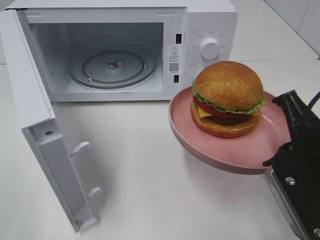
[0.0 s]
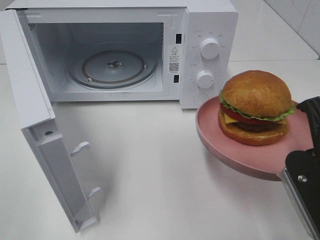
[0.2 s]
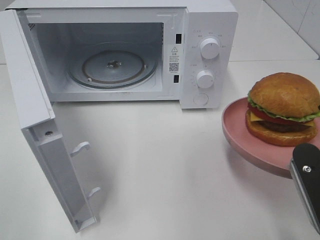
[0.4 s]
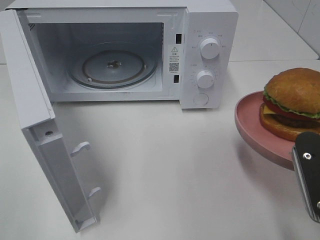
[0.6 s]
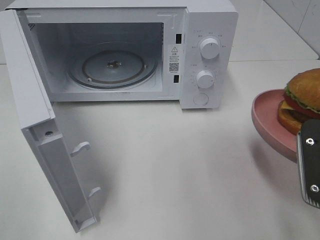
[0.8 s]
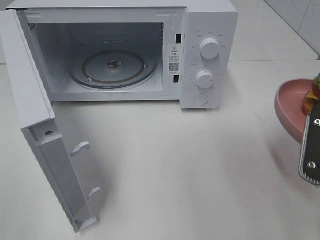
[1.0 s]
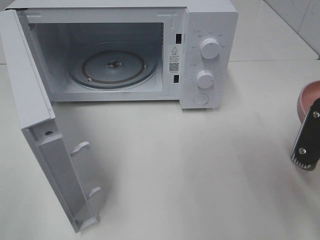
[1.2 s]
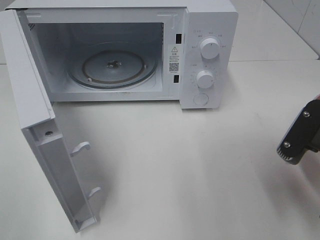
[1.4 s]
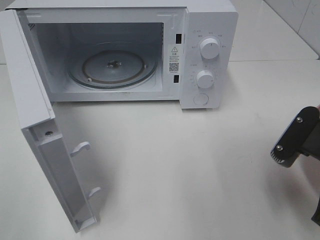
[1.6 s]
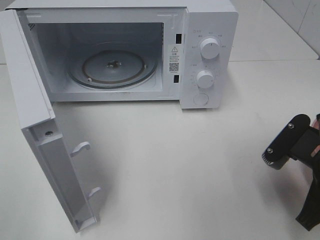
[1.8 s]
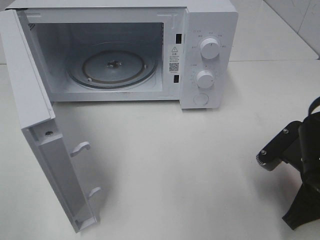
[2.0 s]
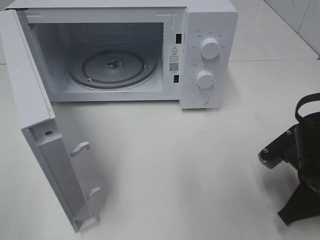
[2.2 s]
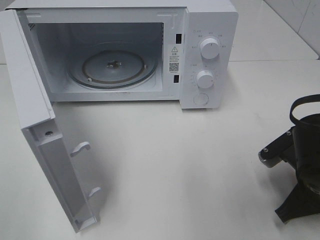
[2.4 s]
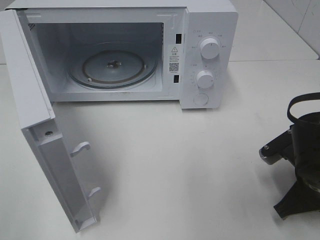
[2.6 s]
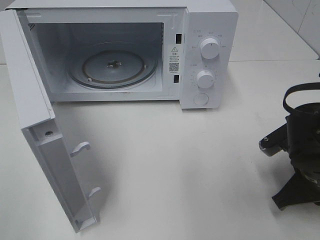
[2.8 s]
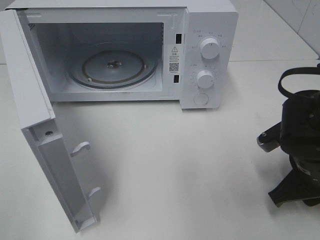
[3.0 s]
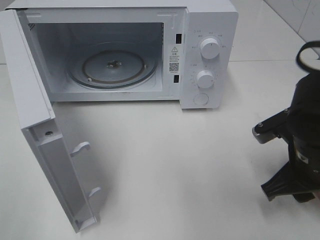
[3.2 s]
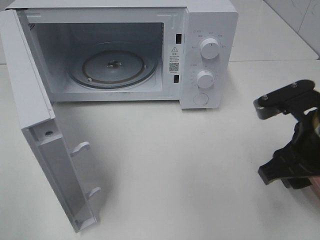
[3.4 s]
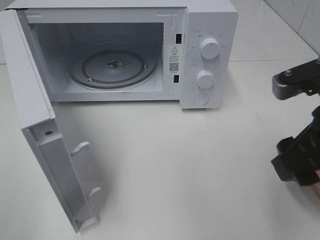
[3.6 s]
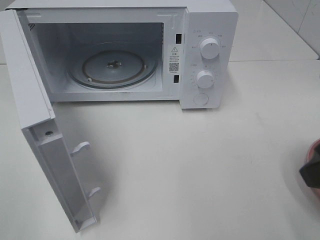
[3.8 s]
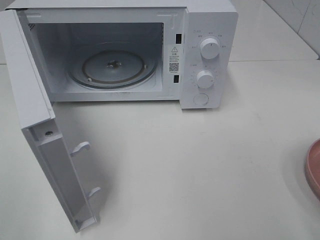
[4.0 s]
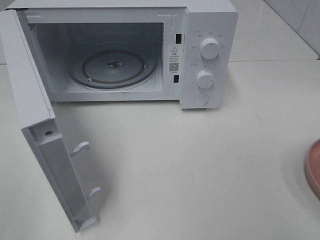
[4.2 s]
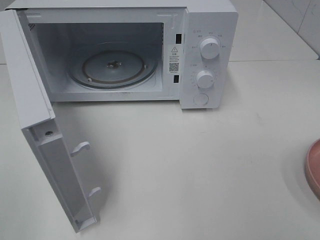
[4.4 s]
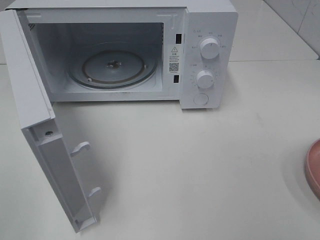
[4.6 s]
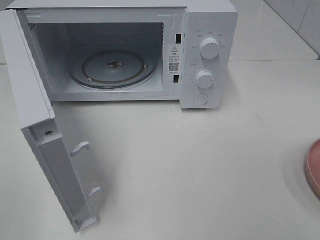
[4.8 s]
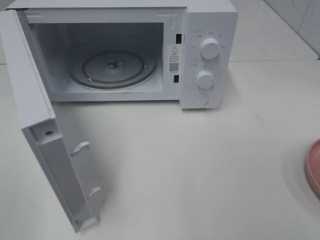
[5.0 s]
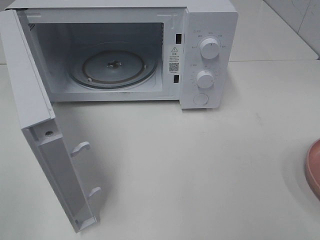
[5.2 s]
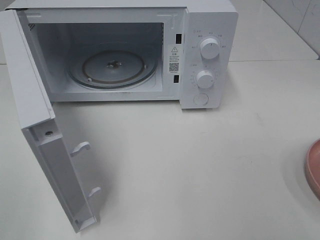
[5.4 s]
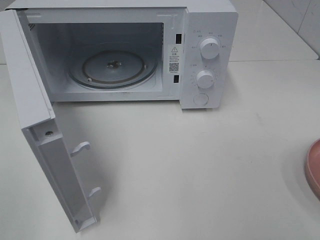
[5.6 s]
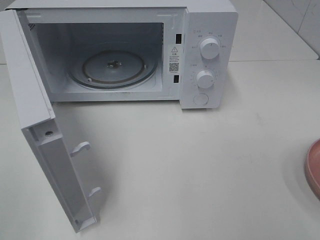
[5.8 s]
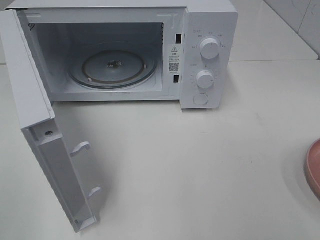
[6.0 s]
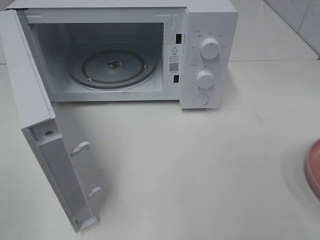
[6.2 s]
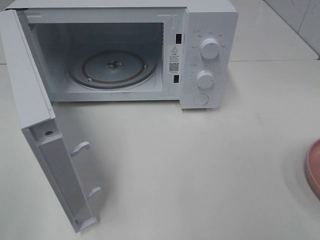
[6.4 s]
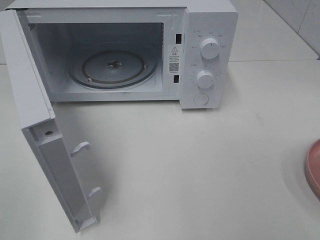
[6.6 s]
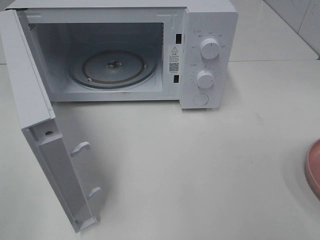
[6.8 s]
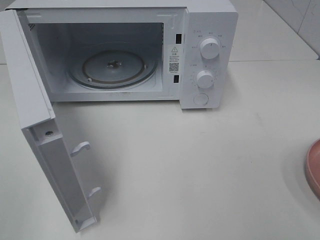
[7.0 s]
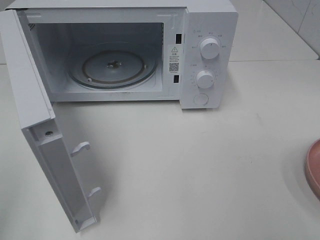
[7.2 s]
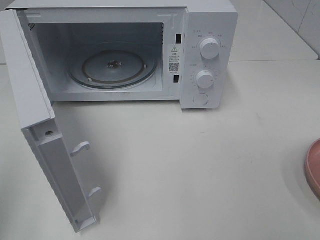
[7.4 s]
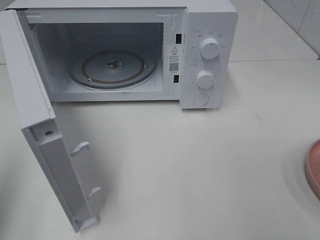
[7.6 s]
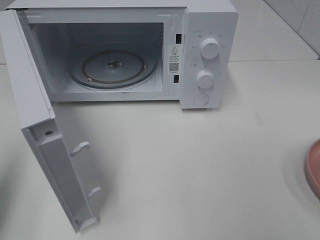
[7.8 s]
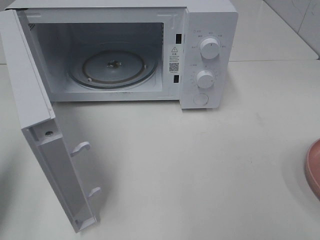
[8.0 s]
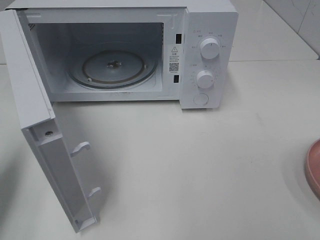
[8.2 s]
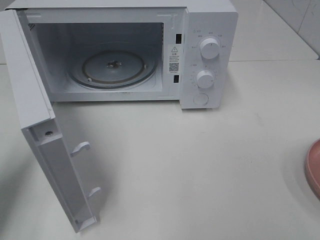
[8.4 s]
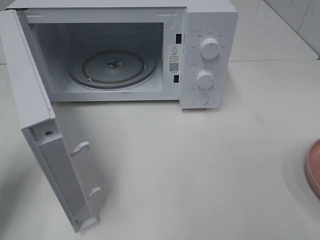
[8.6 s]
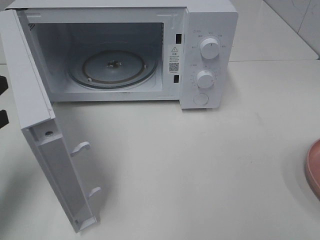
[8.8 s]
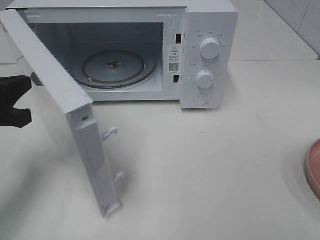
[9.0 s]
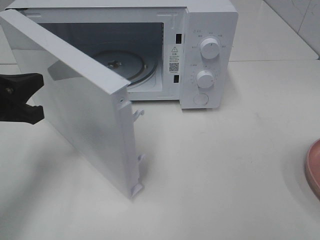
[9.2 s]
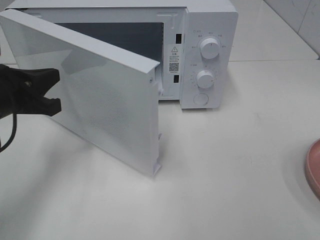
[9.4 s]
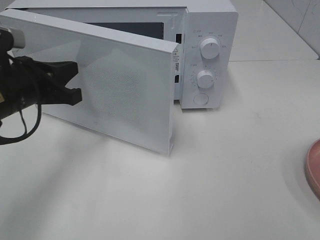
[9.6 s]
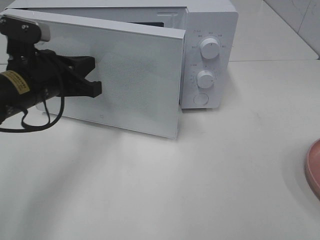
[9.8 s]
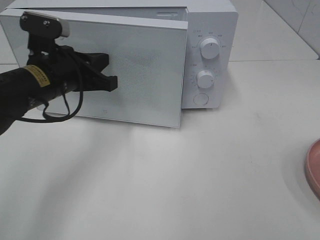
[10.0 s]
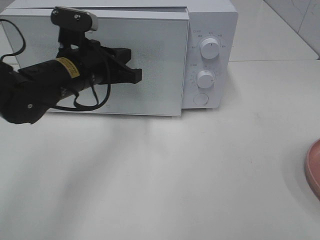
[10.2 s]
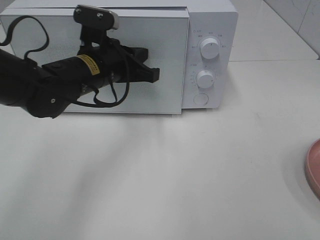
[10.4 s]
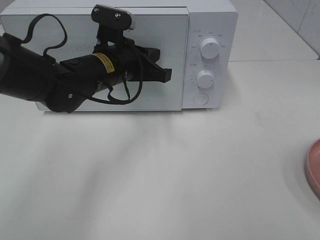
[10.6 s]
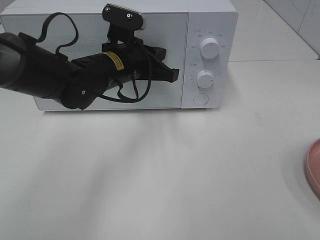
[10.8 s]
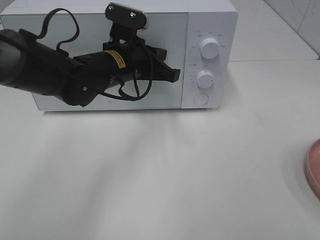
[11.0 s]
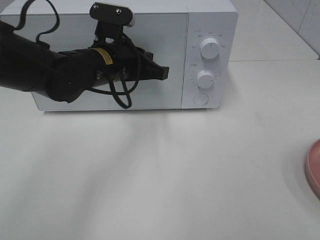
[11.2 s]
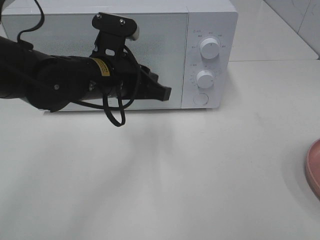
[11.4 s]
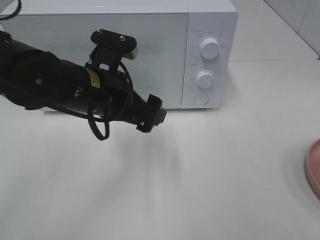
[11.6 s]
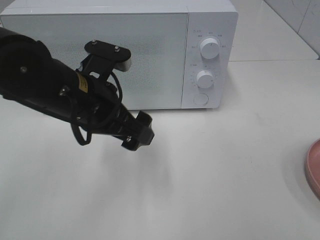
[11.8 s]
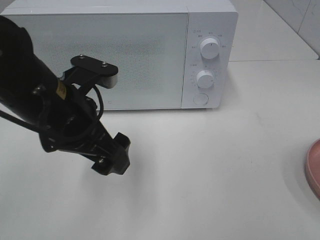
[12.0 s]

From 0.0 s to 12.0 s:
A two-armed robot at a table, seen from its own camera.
Task of the whole recording: Heat the burger.
Step, from 0.0 s to 3.0 s: Right hand: place the plate on the table.
Step, from 3.2 s to 11.4 s: Left hand: close the microwave door.
From 0.0 s to 1.6 s: The right gripper is displaced downward by approximately 5 cm.
From 1.6 s to 3.0 s: The right gripper heads downward, covering about 5 cm, and opens up.
From 3.0 s to 4.4 s: The right gripper moves upward, backward and to the right, roughly 25 cm, and opens up.
From 6.0 s to 7.6 s: The left gripper shifts approximately 10 cm forward, and closes its fingers.
From 7.6 s to 9.0 s: The left gripper moves forward, downward and to the right, approximately 20 cm.
From 9.0 s to 10.4 s: The left gripper moves to the right and forward, some 20 cm.
From 10.4 s to 12.0 s: The left gripper moves backward, about 10 cm, and opens.

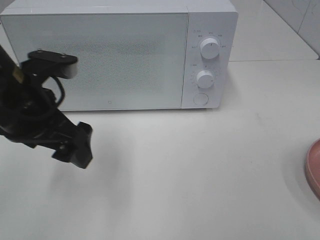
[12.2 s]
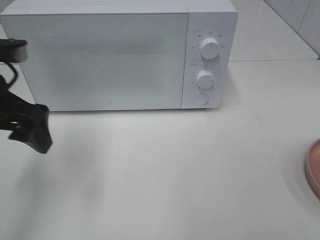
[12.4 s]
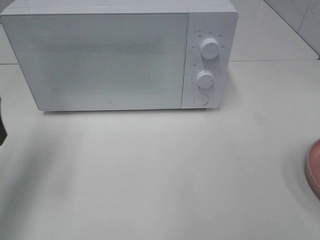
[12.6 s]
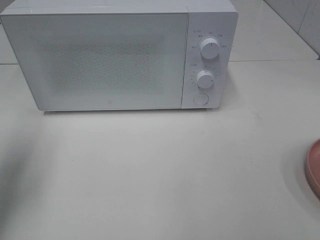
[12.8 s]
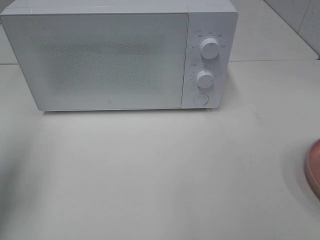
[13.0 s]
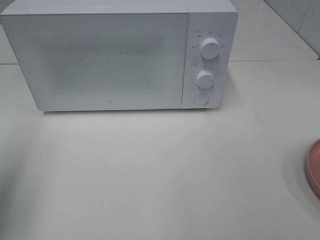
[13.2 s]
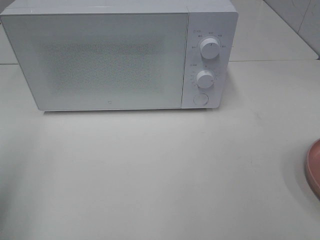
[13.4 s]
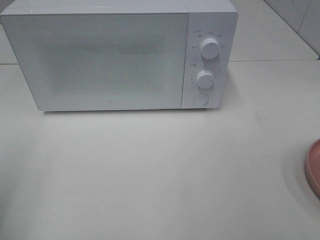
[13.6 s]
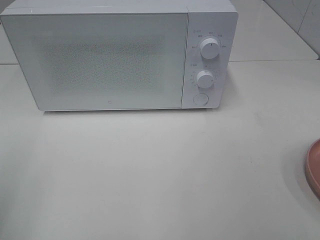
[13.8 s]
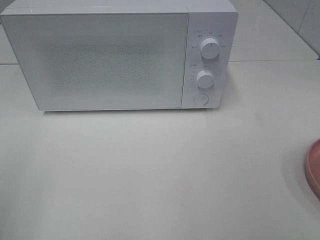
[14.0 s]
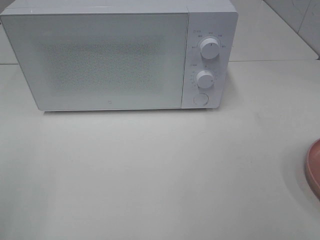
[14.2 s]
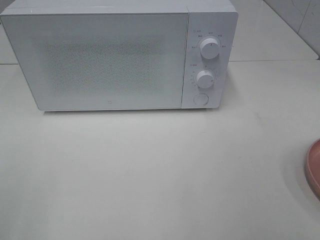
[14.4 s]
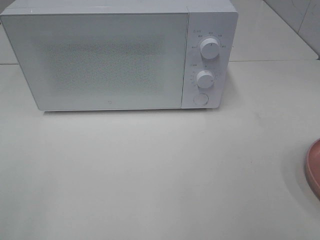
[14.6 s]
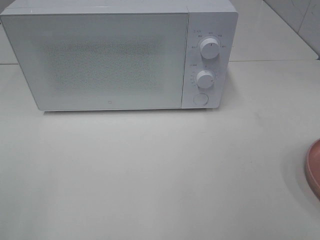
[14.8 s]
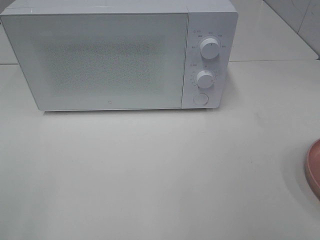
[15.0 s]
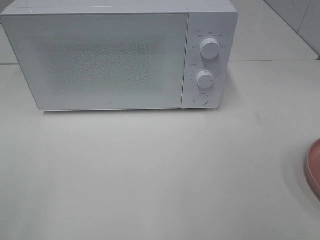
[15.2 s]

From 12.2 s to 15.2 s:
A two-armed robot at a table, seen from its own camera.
Task of the whole recording: Heat the burger.
From 12.2 s to 13.8 s: The left gripper heads to the left and backward, covering roughly 20 cm.
